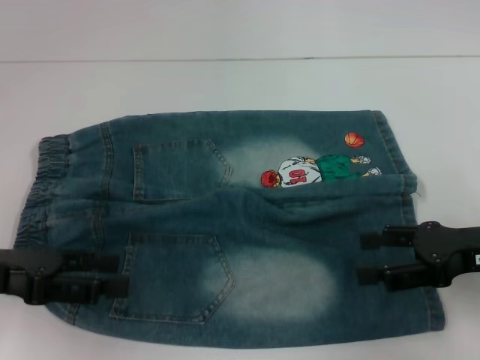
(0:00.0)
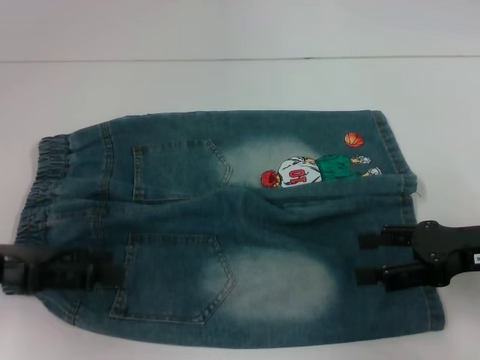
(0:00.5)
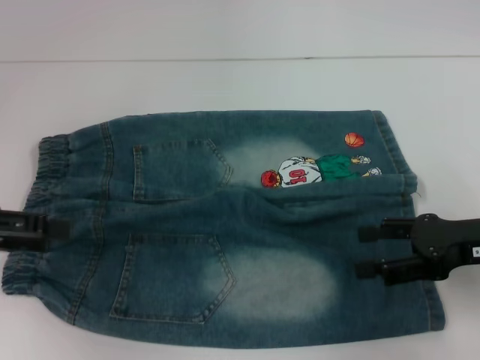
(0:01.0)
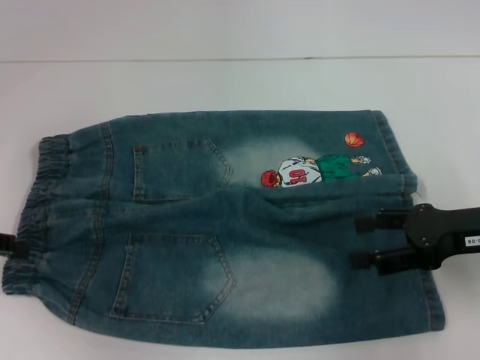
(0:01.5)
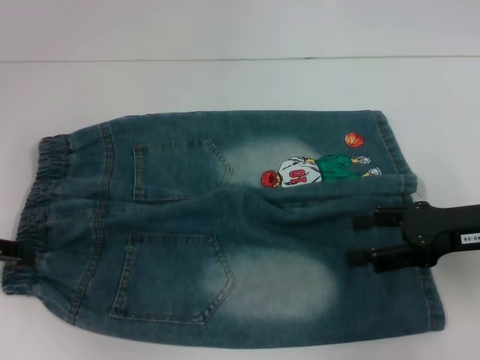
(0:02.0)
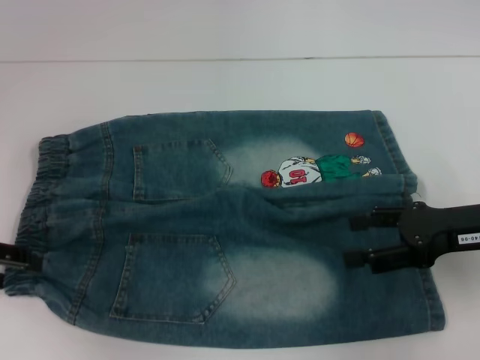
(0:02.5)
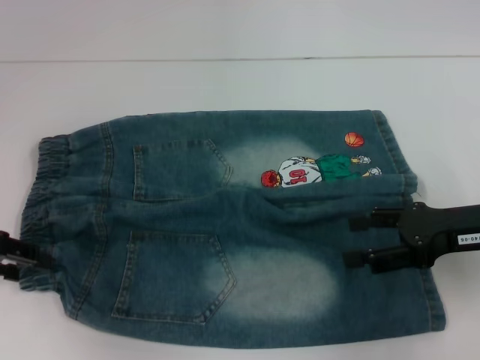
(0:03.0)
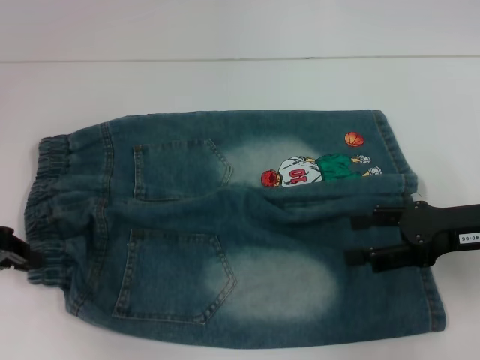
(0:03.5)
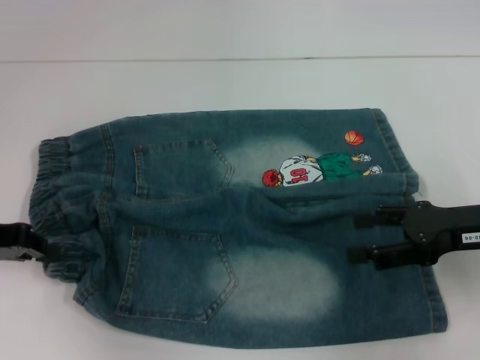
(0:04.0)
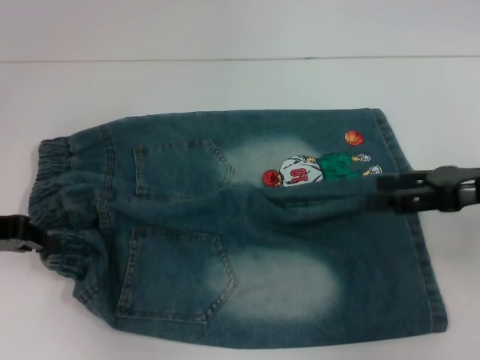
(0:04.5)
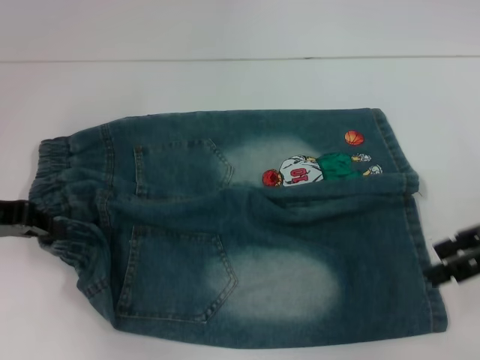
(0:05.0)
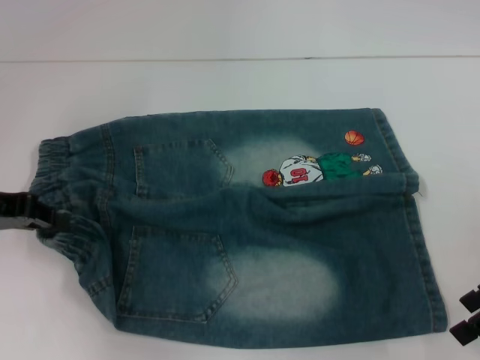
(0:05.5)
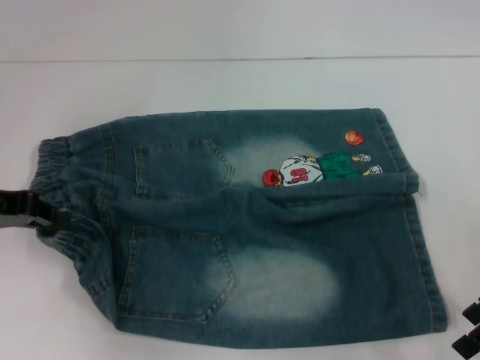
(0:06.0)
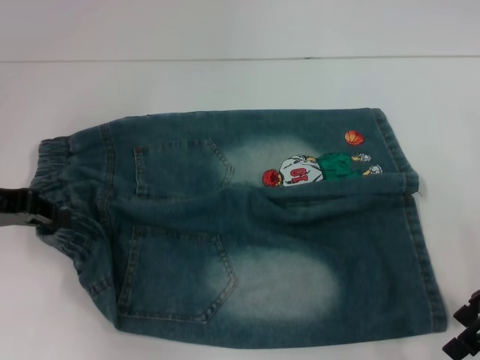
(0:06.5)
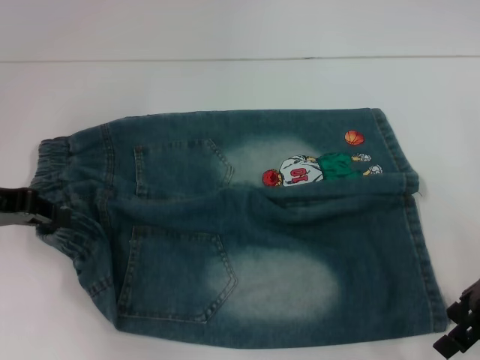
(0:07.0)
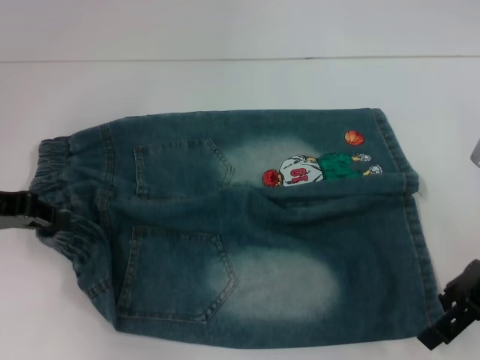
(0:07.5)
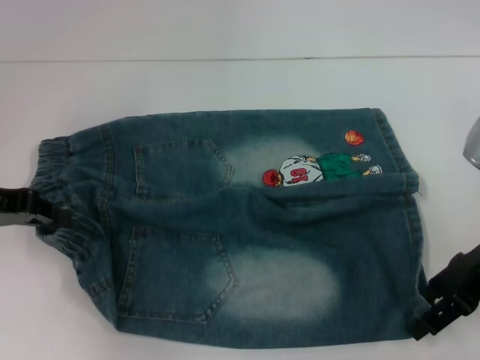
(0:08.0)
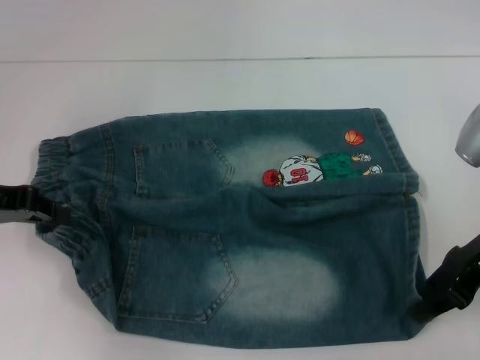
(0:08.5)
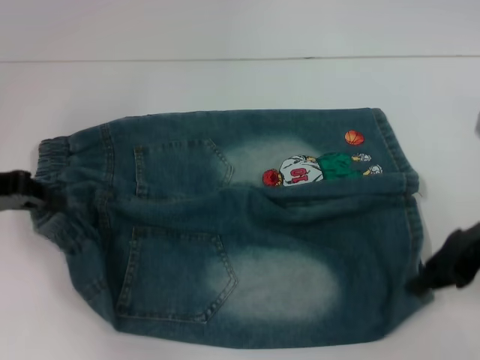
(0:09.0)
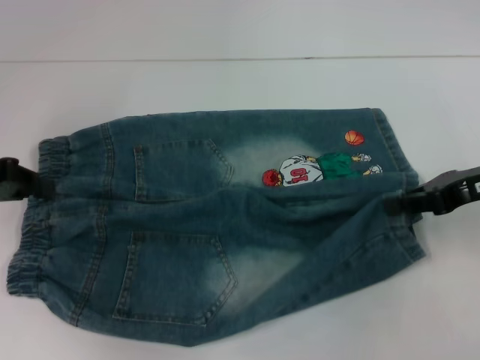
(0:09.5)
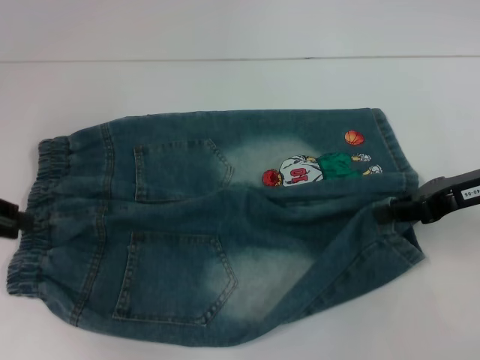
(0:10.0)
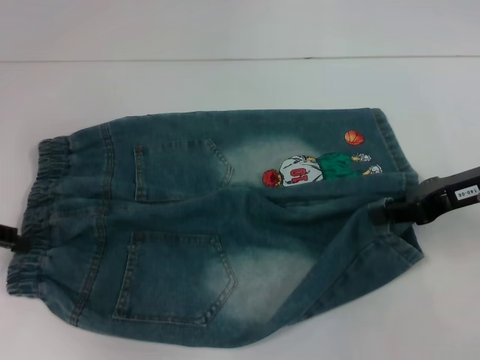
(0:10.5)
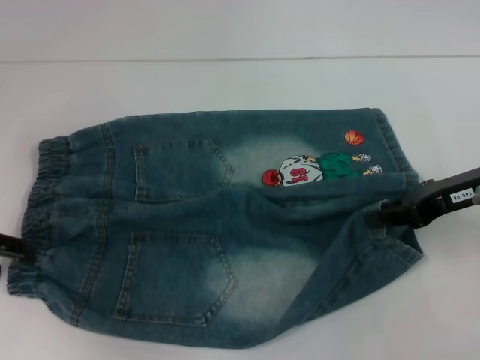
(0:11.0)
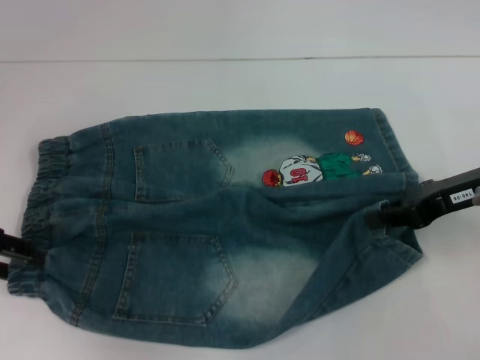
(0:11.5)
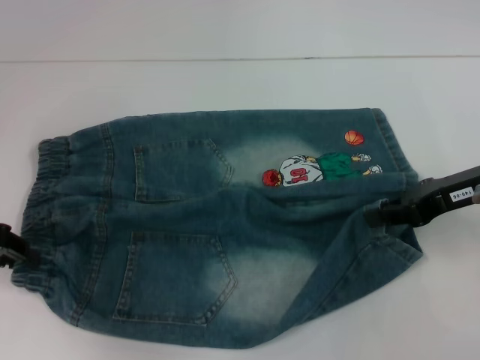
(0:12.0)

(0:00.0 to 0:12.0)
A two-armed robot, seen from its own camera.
Step, 0:00.0 - 0:03.0: Hold the lower left waistband with your left hand.
Step, 0:03.5 - 0:08.0: Grab the lower right pant leg with your right hand.
0:00.0 - 0:02.0: The left gripper shifts approximately 5 cm to the left.
0:02.0 - 0:04.0: The left gripper closes.
0:06.0 - 0:08.0: The grippers stay close to where they were, moving slightly.
0:08.0 - 0:10.0: The right gripper closes up.
0:10.0 - 0:12.0: The left gripper opens.

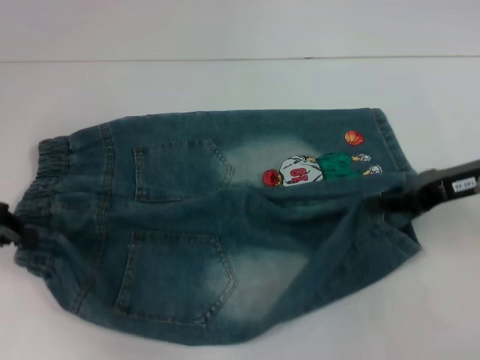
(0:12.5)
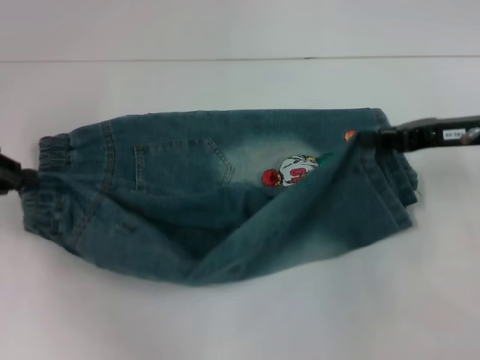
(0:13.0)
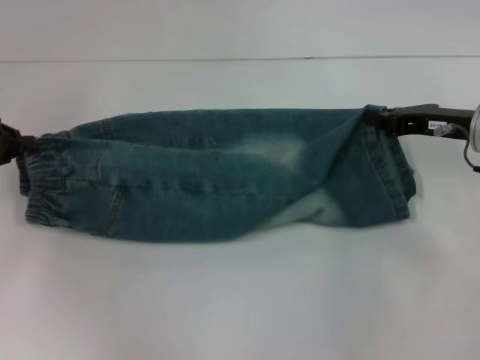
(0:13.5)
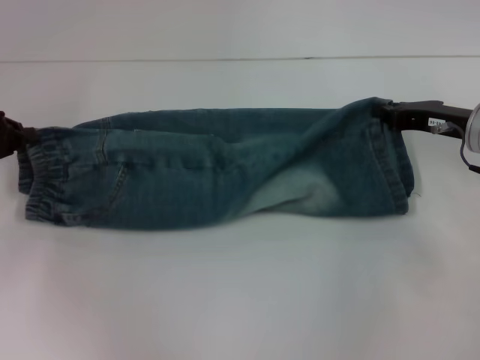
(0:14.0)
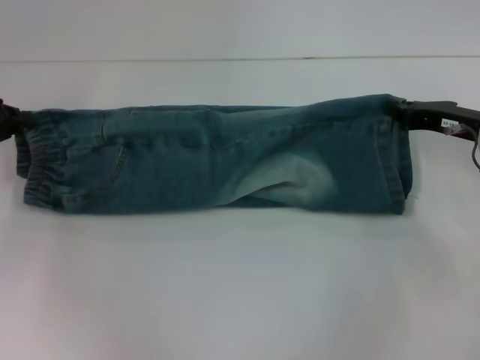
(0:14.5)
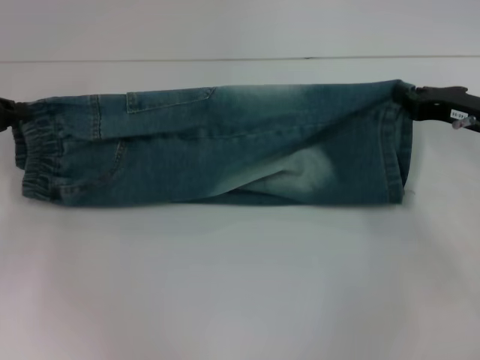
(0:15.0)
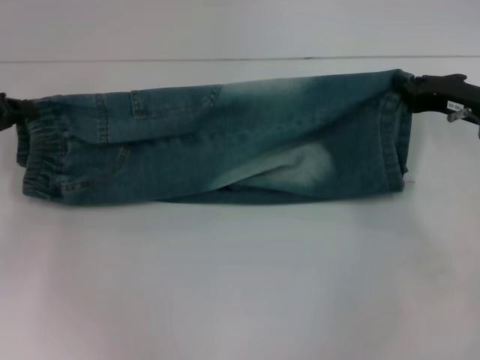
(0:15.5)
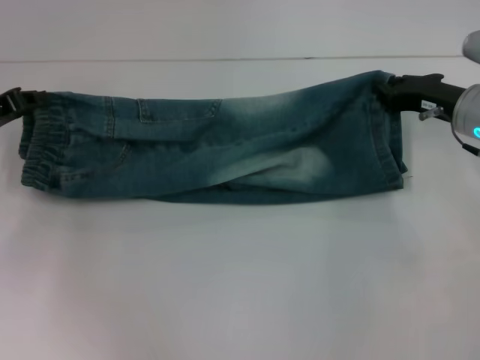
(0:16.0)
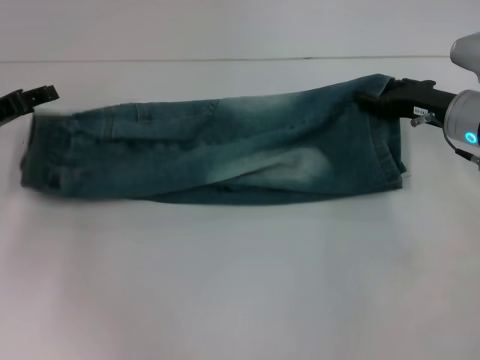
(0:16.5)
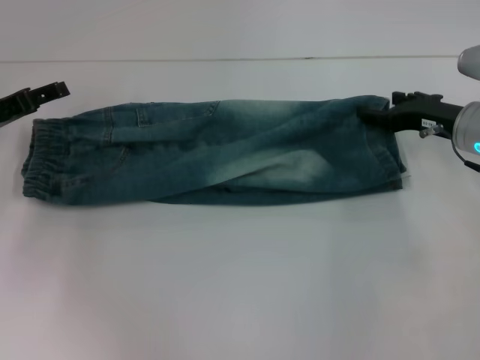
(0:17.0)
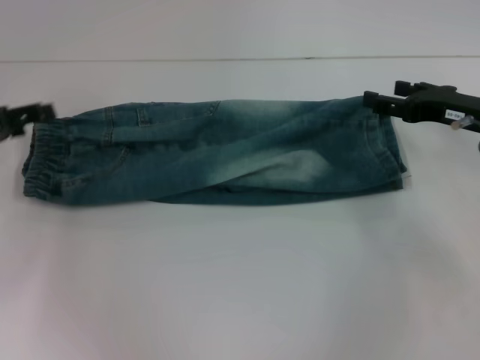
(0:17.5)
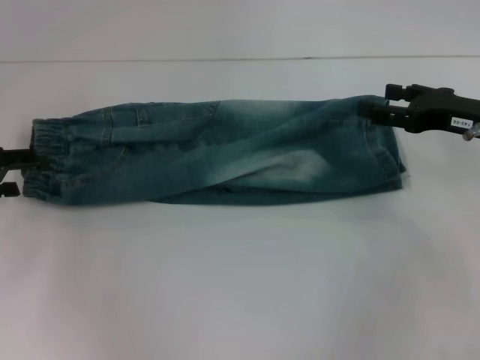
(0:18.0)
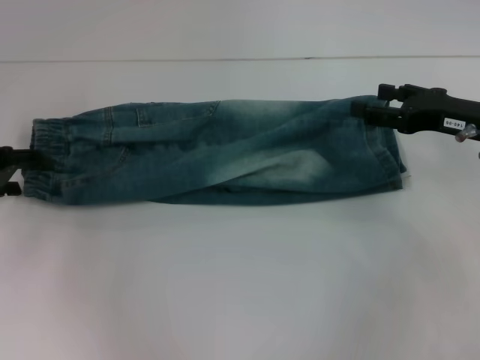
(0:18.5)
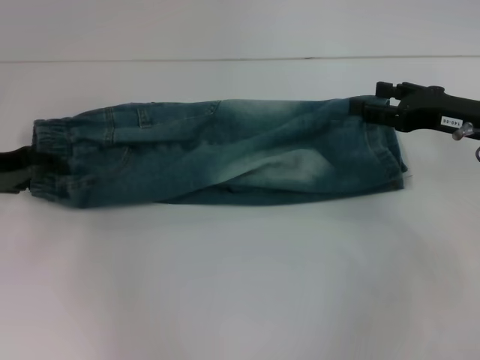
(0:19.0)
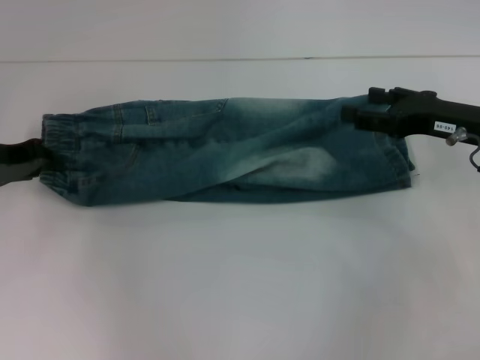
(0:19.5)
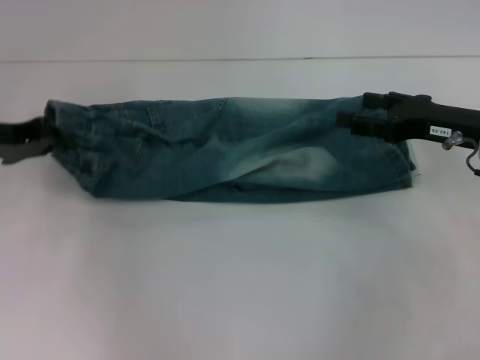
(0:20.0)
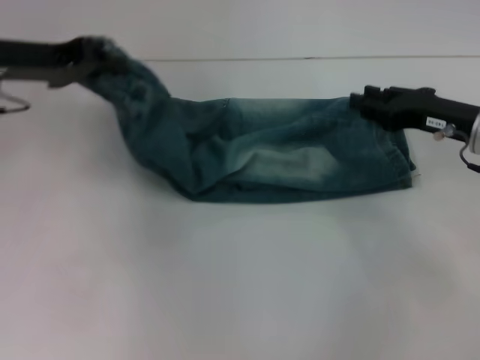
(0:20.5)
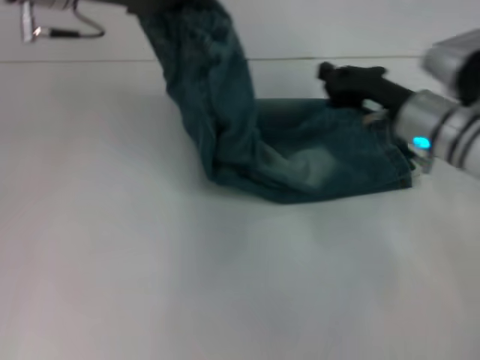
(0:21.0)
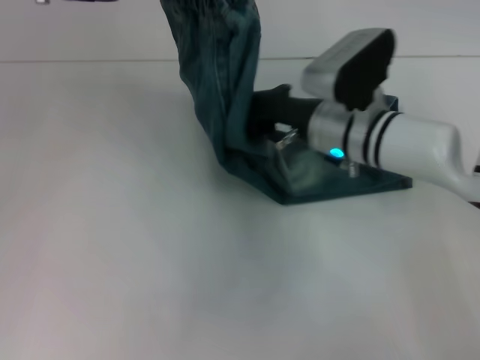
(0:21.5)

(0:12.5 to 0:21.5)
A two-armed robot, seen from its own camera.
Step, 0:12.5 - 0:18.0: Fold upward with your right hand.
Step, 0:18.5 - 0:19.0: Hold the waistband with your left hand.
0:12.5 - 0:14.5: The left gripper moves approximately 5 cm; the right gripper shifts by approximately 5 cm.
0:14.5 - 0:17.0: The right gripper opens; the left gripper opens its fingers.
0:17.0 - 0:19.5: The left gripper closes up.
0:19.5 - 0:21.5: The left gripper heads upward, to the right and forward, covering some 25 cm, while the right gripper is displaced to the left by approximately 15 cm, and closes.

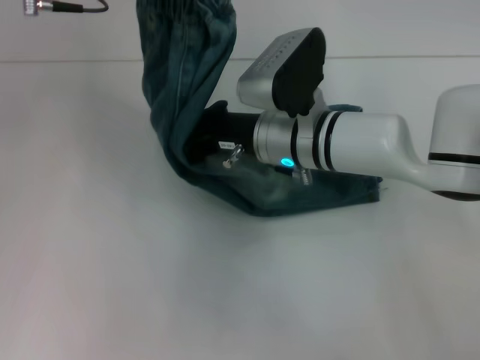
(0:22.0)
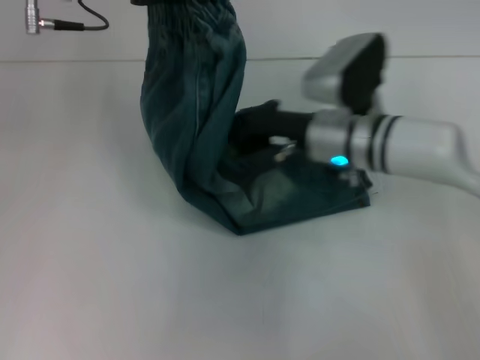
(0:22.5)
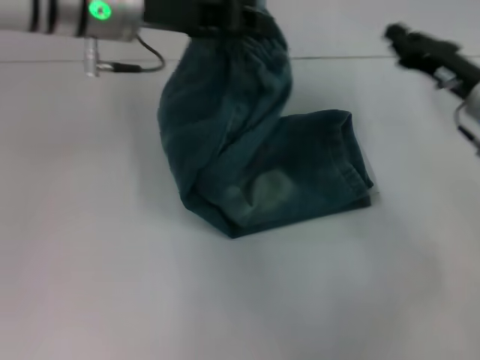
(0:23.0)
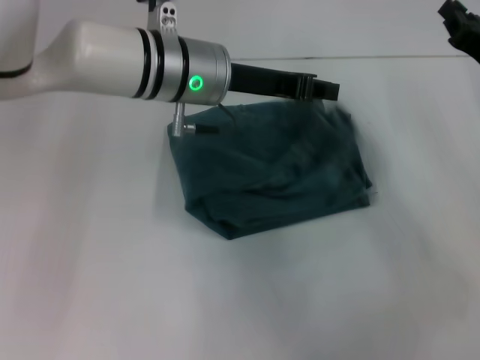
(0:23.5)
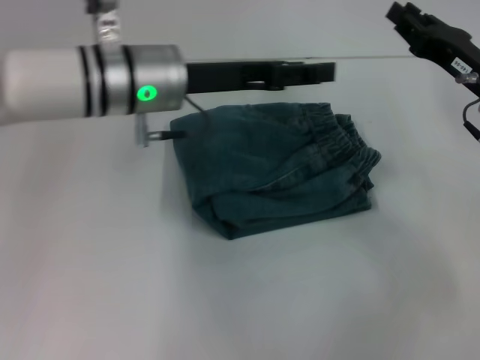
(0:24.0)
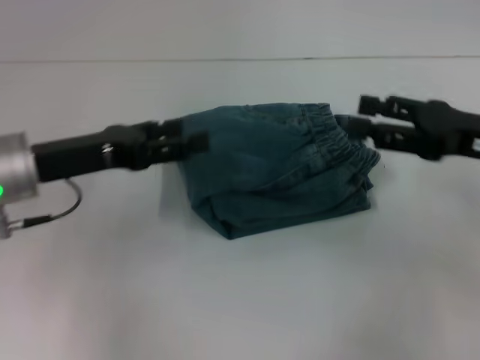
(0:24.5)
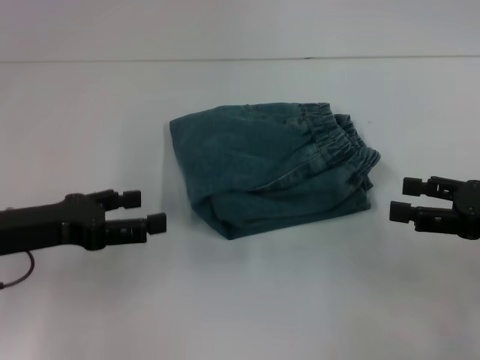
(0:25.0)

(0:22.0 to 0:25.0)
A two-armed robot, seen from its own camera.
Step, 0:22.5 - 0:23.5: Fold to the right with your left hand.
0:22.0 - 0:23.5: The right gripper travels to the right by about 25 cm. Meanwhile the left gripper travels to the right and downward by some 15 cm.
0:23.5 - 0:25.0: The right gripper is displaced backward by approximately 10 cm, and opens up; the left gripper goes roughly 25 cm to the left and backward, and opens its fingers.

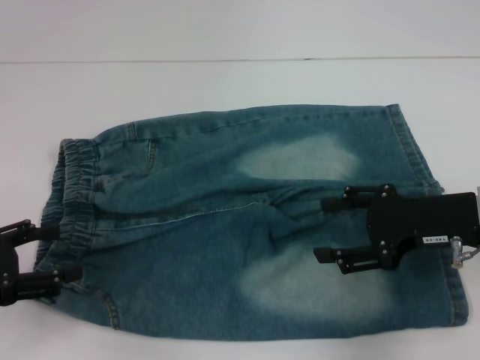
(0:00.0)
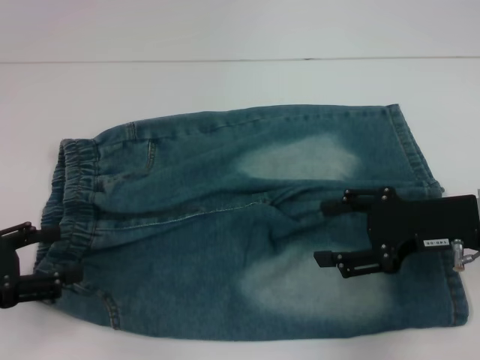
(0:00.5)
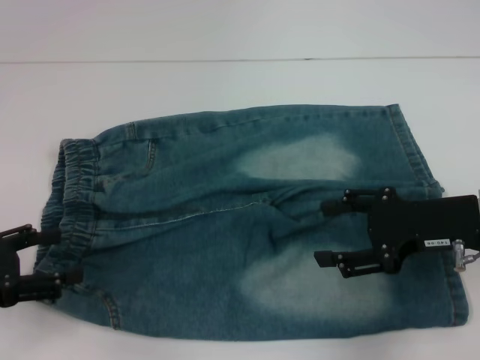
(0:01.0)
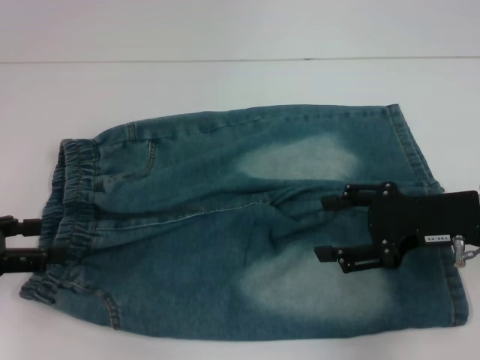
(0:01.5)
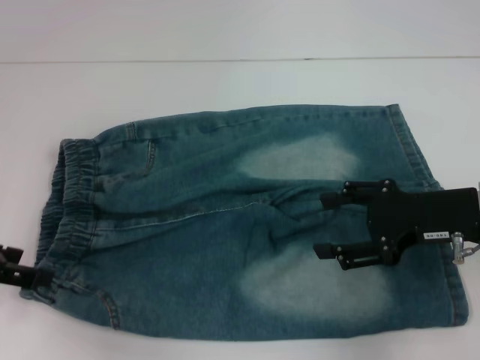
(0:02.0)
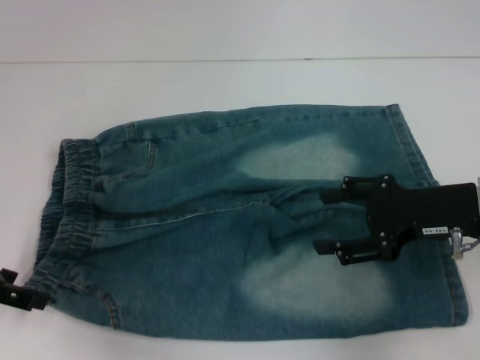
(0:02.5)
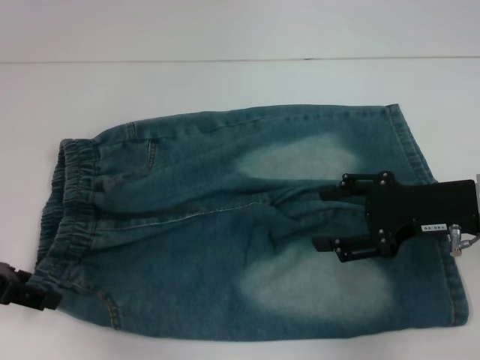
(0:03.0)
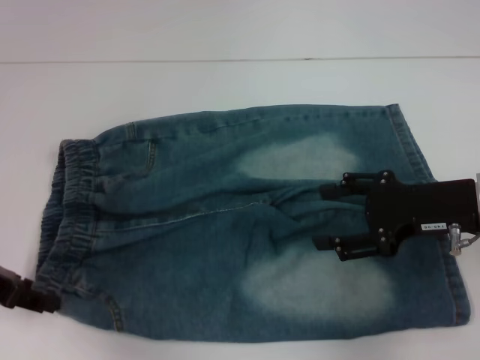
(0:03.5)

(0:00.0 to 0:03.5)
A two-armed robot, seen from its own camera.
0:00.0 - 0:02.0: The left gripper shifts roughly 5 cm forward.
0:02.0 - 0:03.5: The grippers stay close to where they were, moving slightly.
